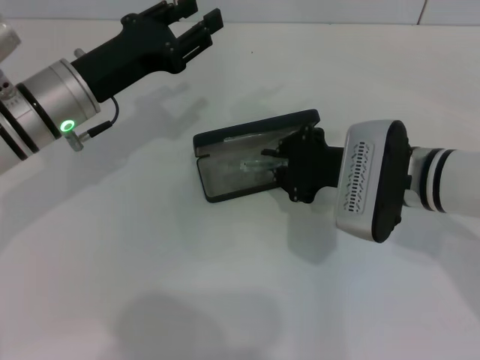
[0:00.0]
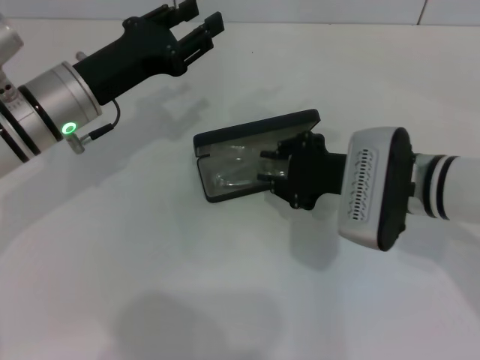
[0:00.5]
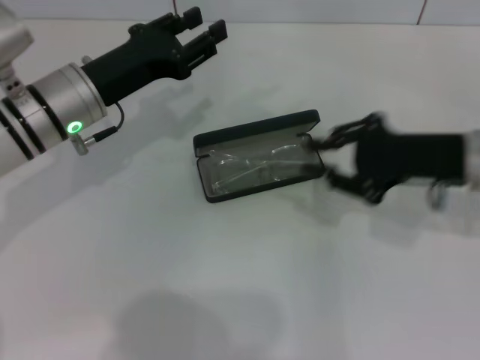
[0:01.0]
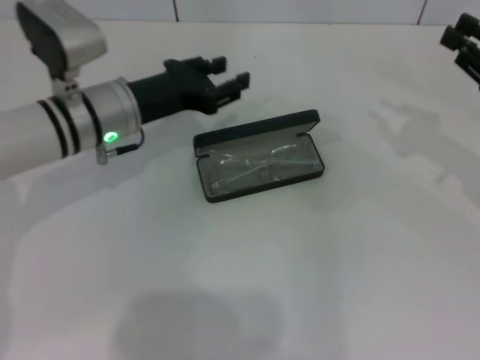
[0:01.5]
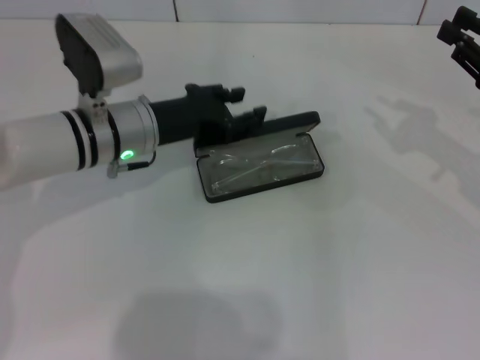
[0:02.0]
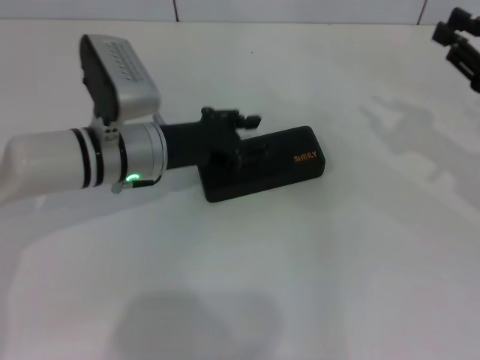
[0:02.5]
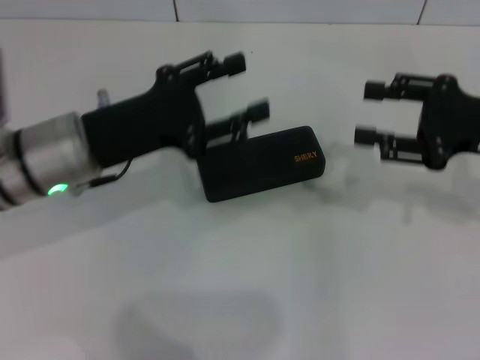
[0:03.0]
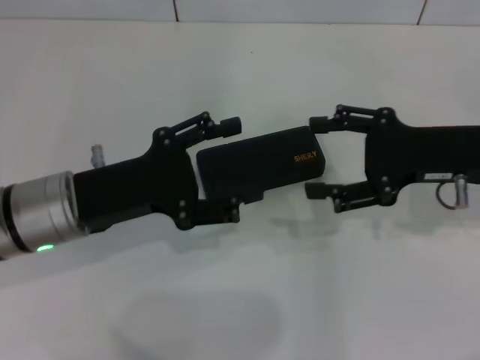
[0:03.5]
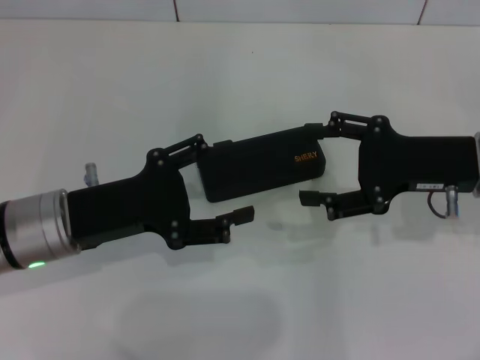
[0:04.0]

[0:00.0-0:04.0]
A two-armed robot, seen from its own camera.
Step, 0:01.0 to 0:02.0: Close the glasses case with your left hand.
0:00.0 to 0:02.0: The right gripper moves to the right, about 20 cm, while the left gripper shifts by approximately 5 cm.
0:02.0 to 0:04.0: The right gripper heads to the left, covering about 10 cm, and opens its fingers, while the left gripper is displaced backward and to the left by about 10 cm, and opens.
